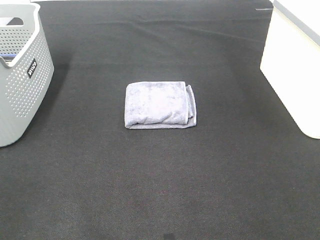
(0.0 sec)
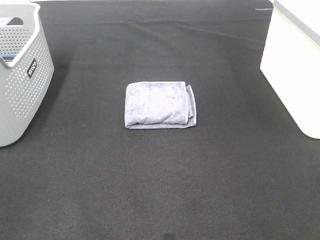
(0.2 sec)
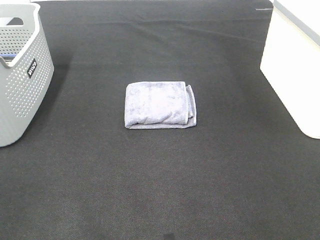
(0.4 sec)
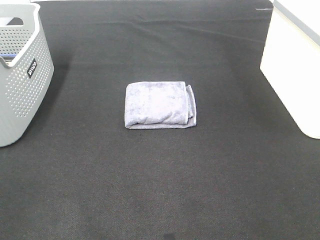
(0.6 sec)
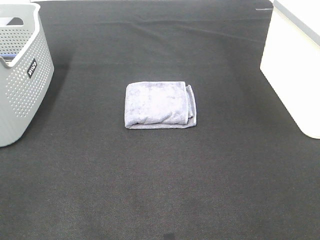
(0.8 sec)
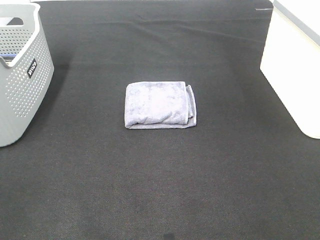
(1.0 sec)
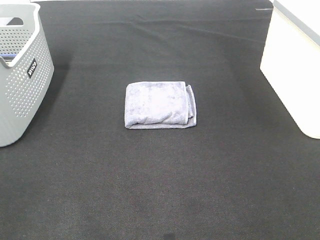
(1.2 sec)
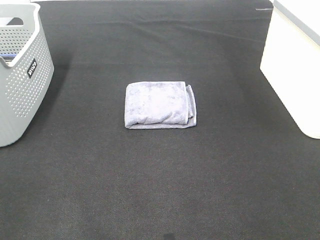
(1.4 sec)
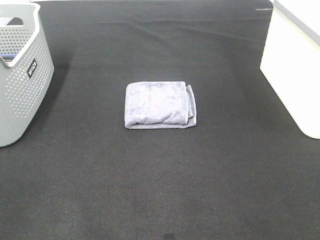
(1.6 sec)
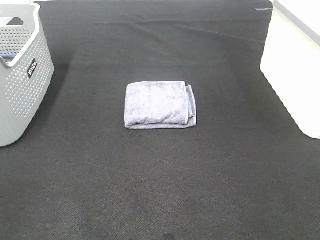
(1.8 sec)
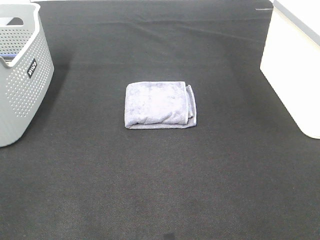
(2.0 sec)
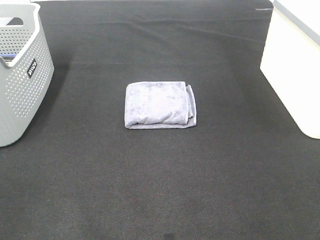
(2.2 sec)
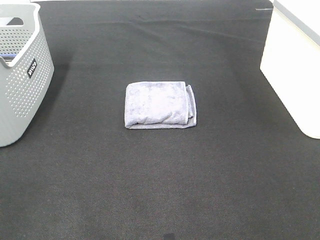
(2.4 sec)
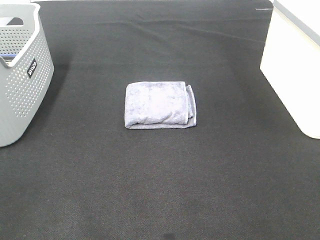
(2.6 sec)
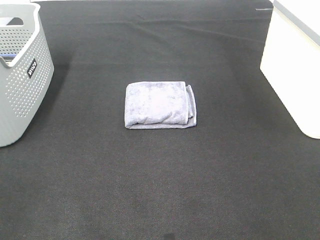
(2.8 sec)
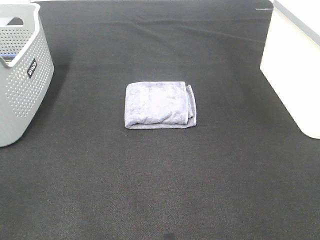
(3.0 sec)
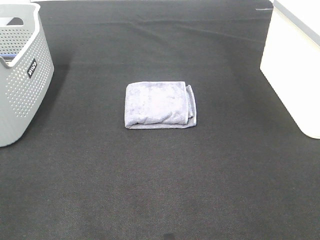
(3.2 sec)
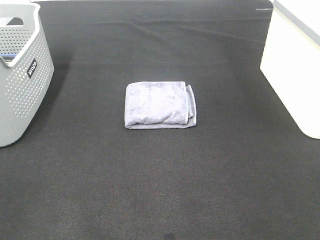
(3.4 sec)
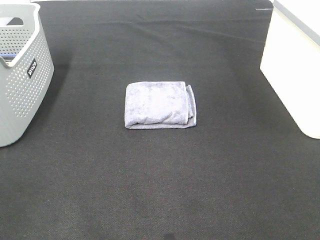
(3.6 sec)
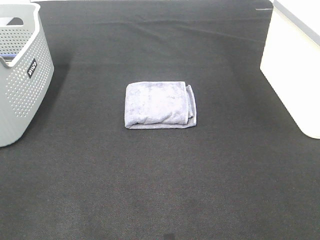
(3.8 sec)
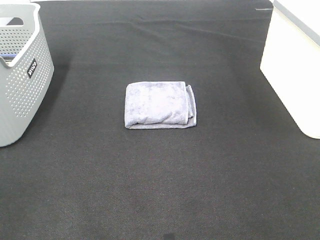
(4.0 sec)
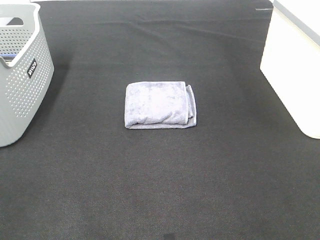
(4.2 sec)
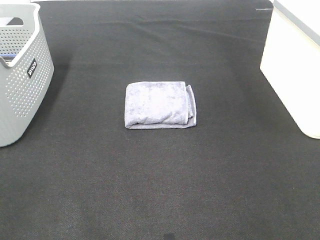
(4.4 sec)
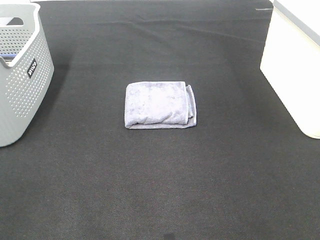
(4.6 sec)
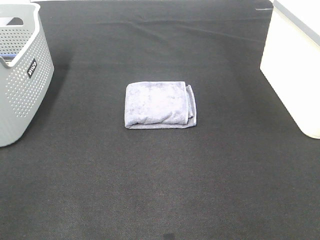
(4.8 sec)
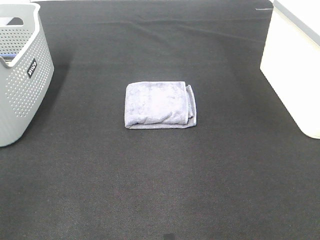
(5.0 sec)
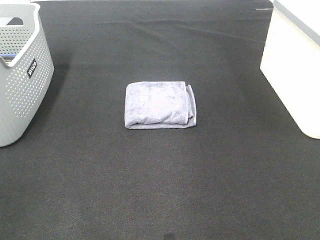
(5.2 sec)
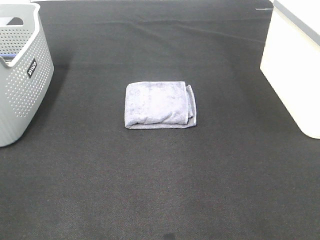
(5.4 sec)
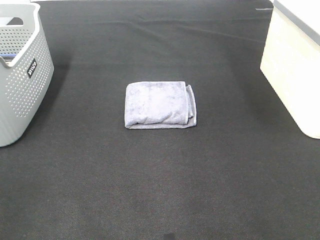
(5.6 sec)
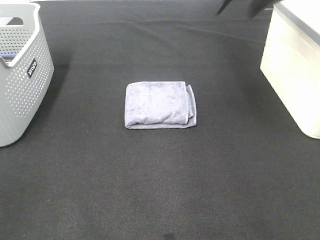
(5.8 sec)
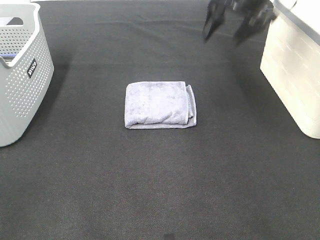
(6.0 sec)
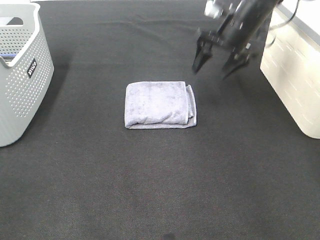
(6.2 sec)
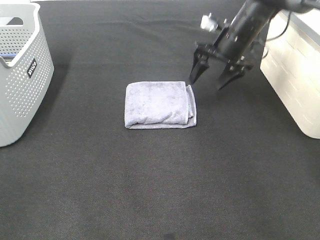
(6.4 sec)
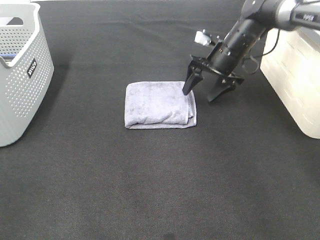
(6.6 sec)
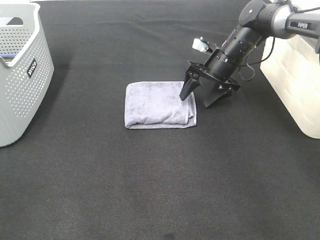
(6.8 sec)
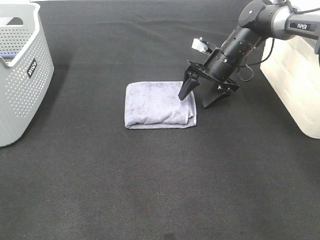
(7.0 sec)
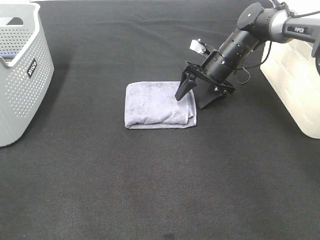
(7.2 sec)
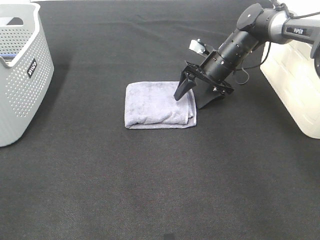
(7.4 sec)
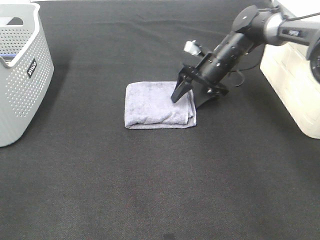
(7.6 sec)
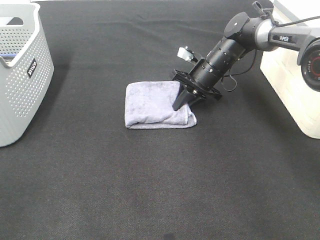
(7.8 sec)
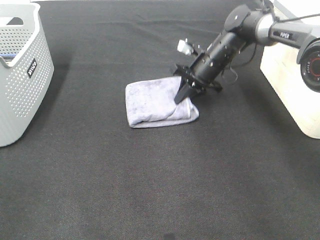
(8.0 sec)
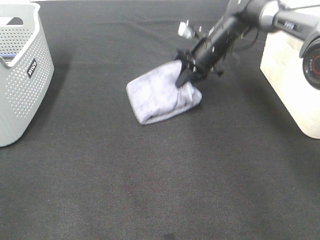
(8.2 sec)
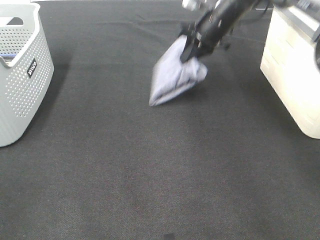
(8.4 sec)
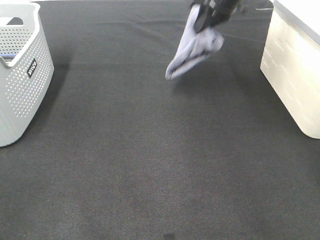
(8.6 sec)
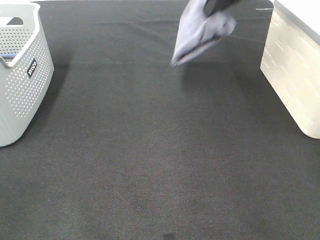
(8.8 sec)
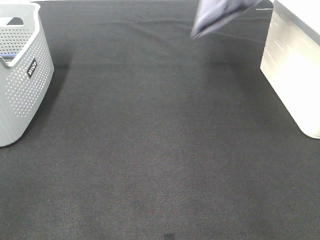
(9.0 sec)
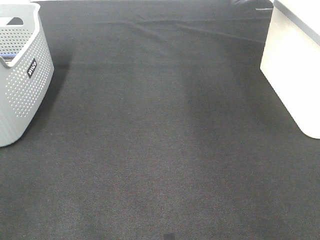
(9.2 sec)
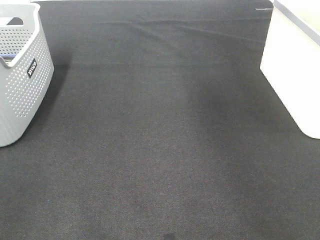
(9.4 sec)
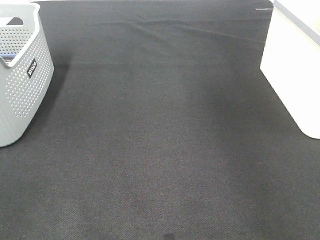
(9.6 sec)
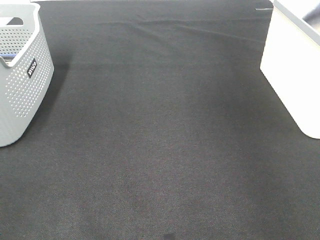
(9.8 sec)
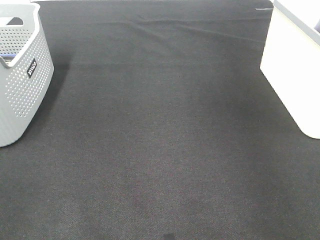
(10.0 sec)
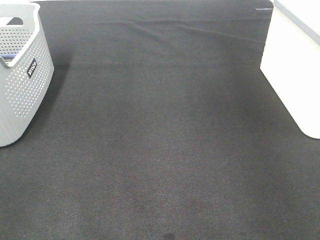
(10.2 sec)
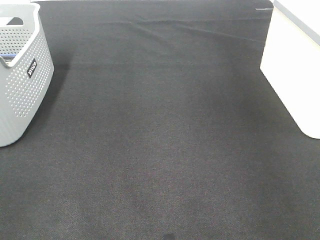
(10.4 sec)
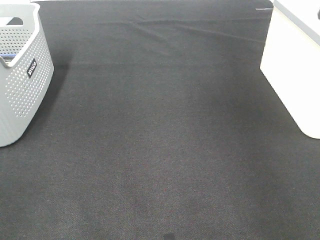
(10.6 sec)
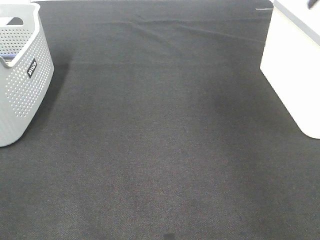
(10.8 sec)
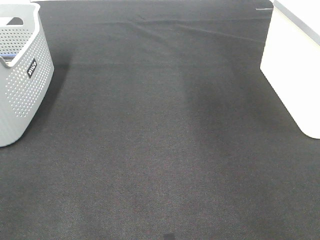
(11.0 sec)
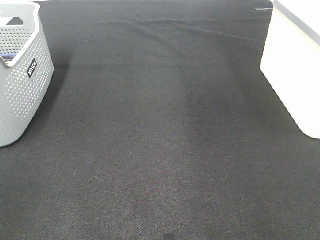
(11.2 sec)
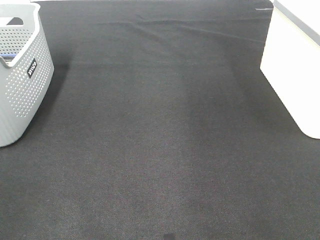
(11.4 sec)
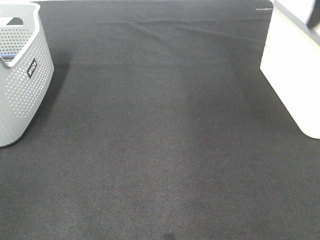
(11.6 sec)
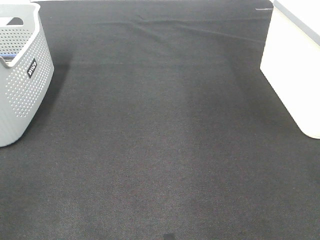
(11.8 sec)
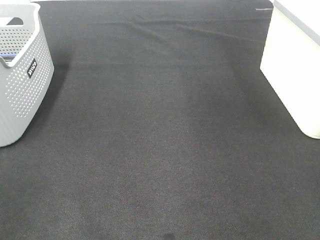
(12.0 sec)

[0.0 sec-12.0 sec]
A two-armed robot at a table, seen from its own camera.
Step, 0.0 sec to 7.8 sec: Right hand: grab the folded grey towel.
Step, 8.0 sec to 10.4 sec: Right hand: place the grey towel in right basket.
0.0 sec to 3.0 sec: Neither gripper changes place.
4.4 sec to 6.0 sec: The right gripper moves forward, approximately 40 cm.
6.0 sec to 7.6 sec: The right gripper travels downward by approximately 15 cm.
7.6 sec to 9.0 sec: The right gripper is displaced upward by approximately 30 cm, and closes its fingers.
9.0 sec to 10.4 sec: The right gripper moves to the right, some 20 cm, and opens up.

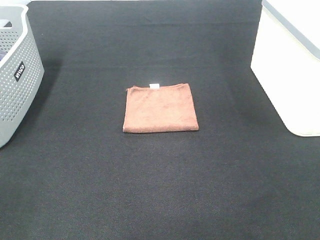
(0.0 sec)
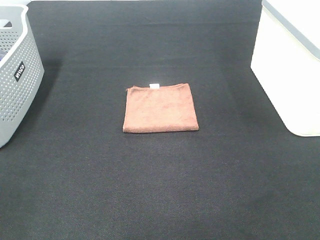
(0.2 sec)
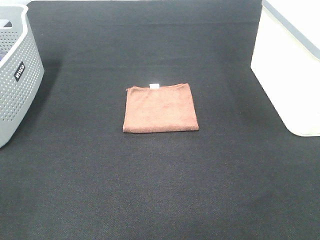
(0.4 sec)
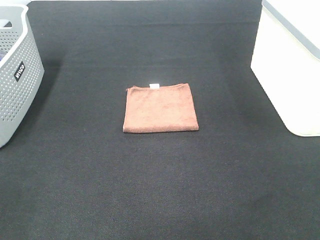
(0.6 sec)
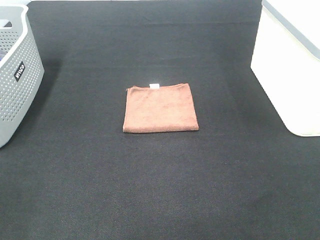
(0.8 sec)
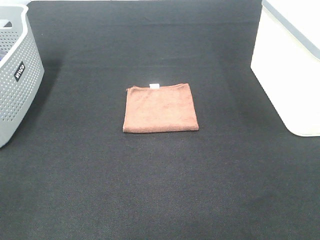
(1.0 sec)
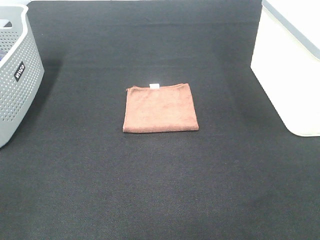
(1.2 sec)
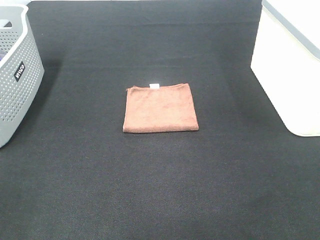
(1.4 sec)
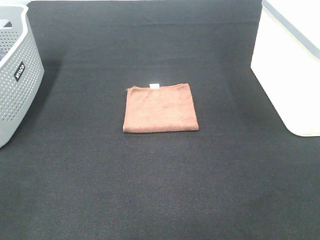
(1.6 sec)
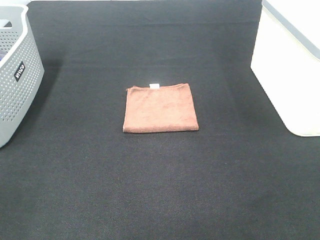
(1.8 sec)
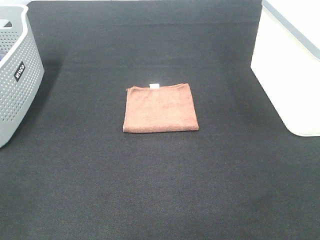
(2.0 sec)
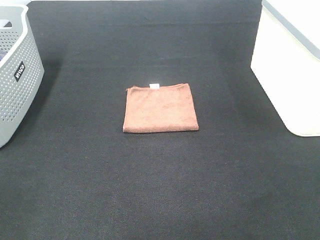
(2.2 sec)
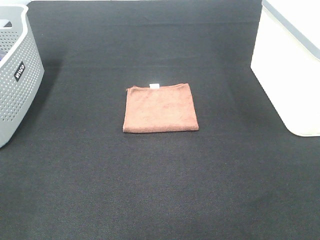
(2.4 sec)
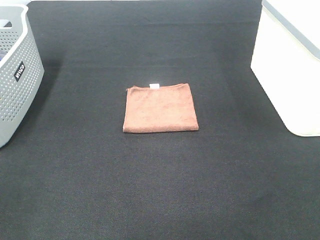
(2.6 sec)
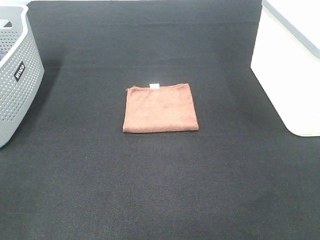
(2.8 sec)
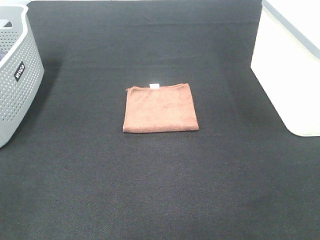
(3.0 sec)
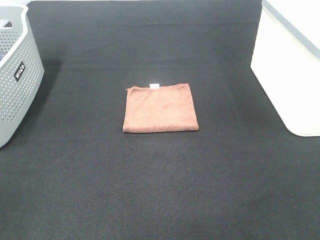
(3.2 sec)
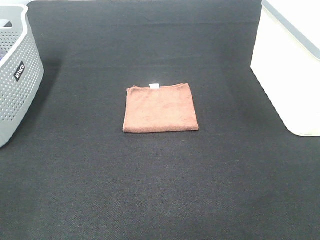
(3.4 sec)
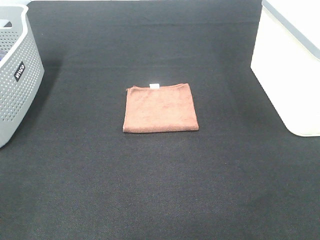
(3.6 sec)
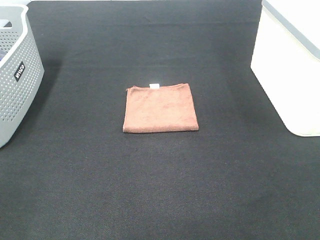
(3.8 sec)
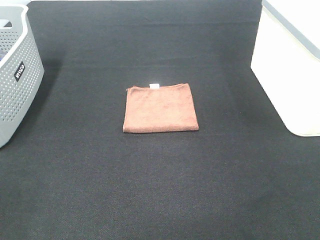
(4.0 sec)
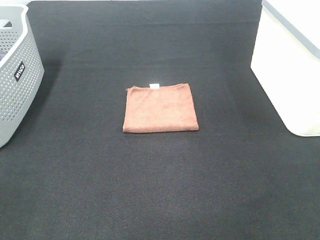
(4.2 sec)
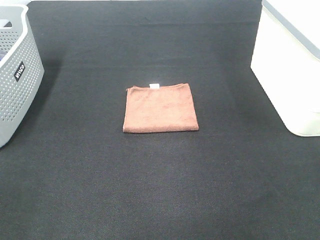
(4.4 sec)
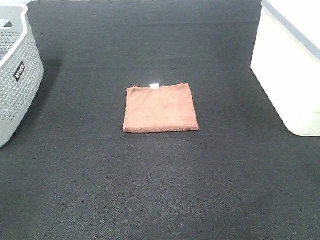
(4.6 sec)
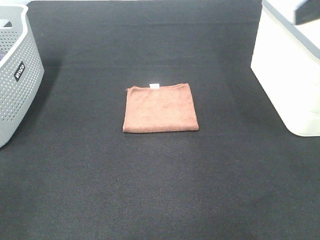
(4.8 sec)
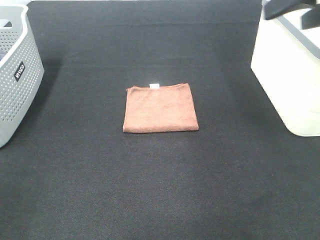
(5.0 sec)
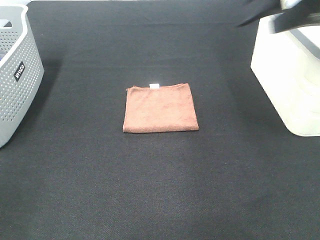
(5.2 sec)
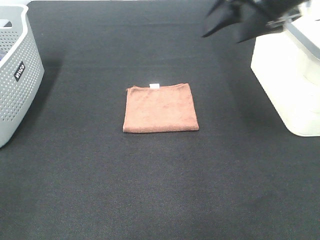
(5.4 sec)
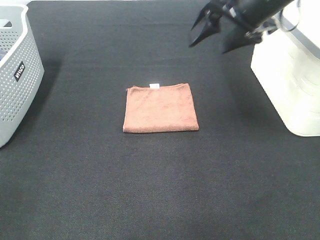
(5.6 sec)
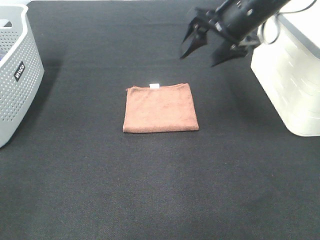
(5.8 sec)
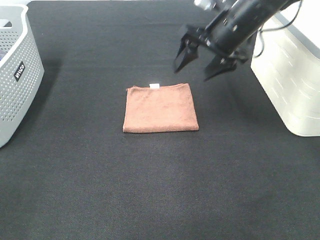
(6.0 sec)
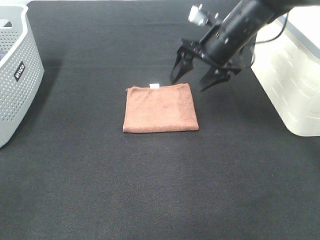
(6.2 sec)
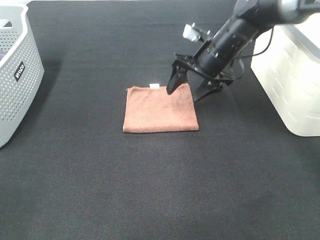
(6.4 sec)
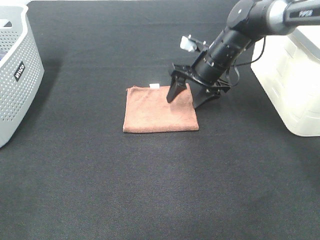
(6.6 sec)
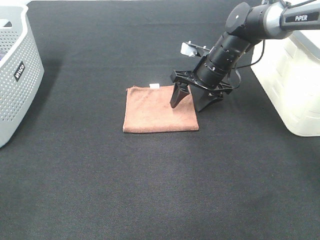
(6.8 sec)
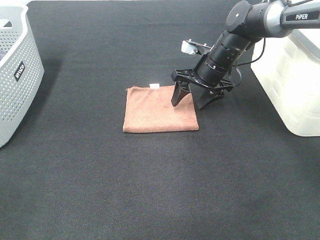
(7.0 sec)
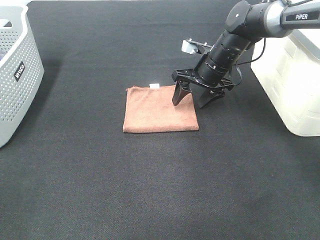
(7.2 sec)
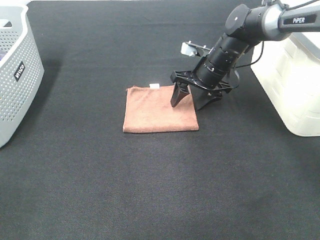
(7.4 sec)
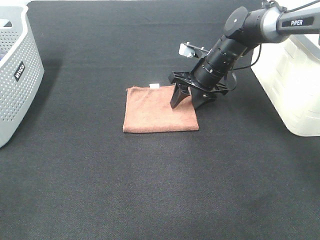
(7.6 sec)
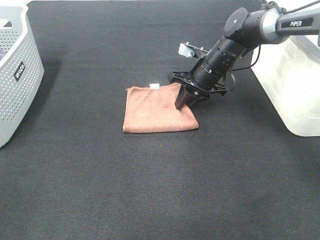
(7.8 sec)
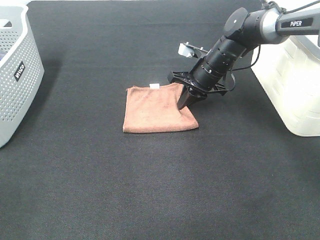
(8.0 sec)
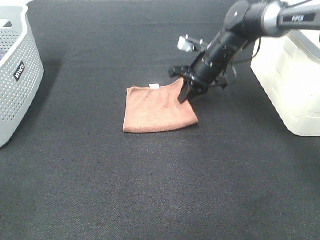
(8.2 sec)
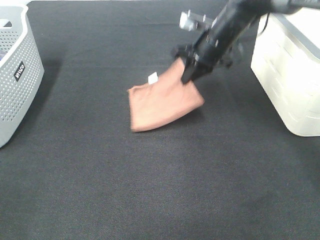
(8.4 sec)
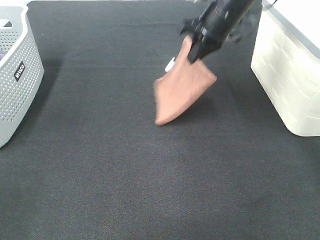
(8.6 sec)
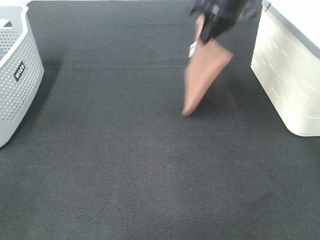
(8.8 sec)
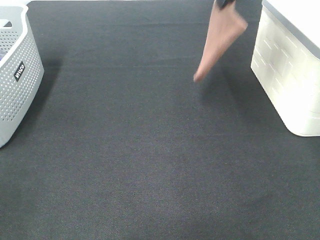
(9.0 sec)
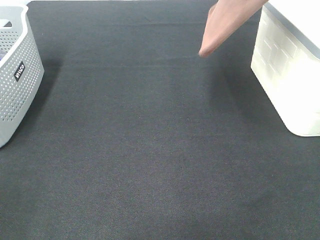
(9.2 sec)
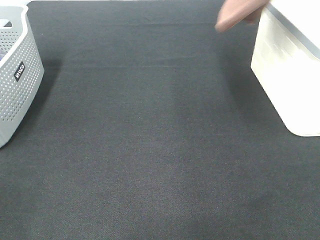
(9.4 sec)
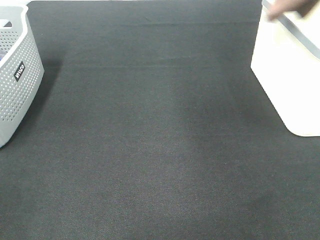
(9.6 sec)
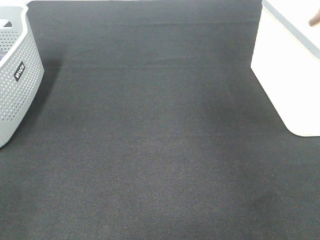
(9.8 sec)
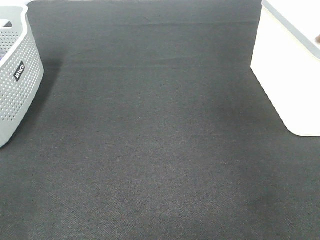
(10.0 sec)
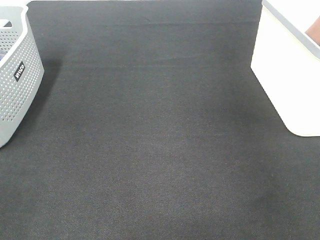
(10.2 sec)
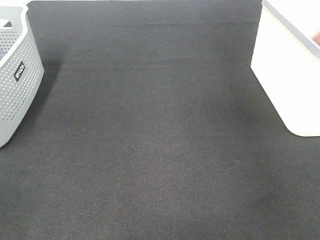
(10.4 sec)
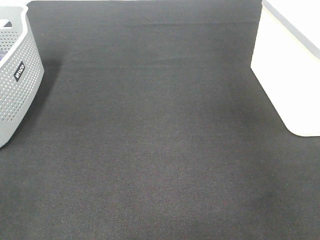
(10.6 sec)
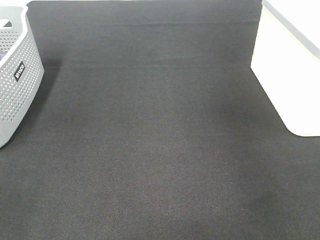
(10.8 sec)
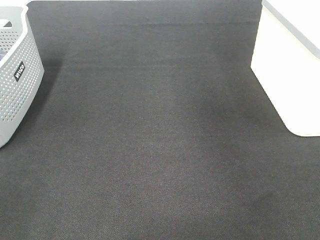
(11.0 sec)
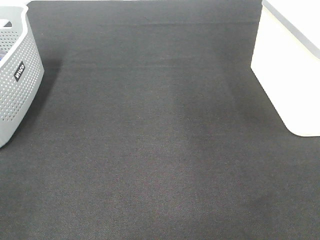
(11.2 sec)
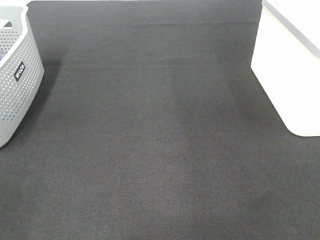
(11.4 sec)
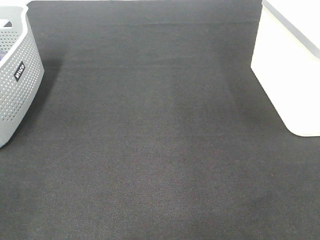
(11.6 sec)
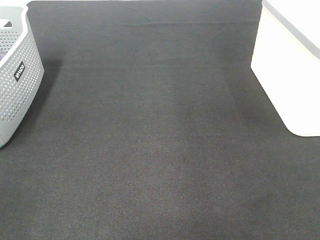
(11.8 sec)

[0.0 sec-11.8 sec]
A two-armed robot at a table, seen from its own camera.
Step, 0.0 sec to 8.2 sec: Right hand: grab the folded brown towel.
Step, 8.4 sec to 10.8 sec: Right hand: place the brown towel in right basket.
0.0 sec to 3.0 sec: The two grippers keep their place.
4.4 sec to 6.0 sec: The right gripper moves forward, to the left and downward, roughly 35 cm.
6.0 sec to 7.4 sec: The right gripper travels downward by roughly 10 cm.
7.4 sec to 8.8 sec: The right gripper is displaced upward by about 20 cm, and closes.
8.8 sec to 10.4 sec: The right gripper is displaced to the right by about 25 cm, and opens.
